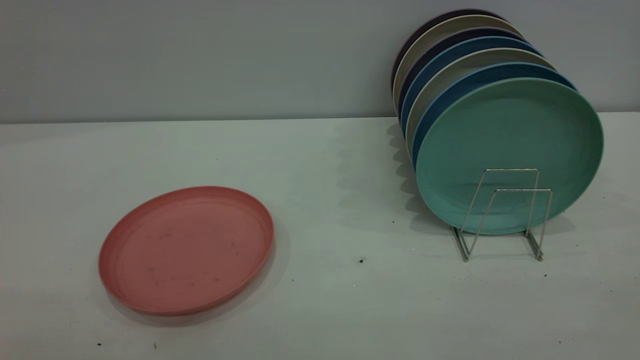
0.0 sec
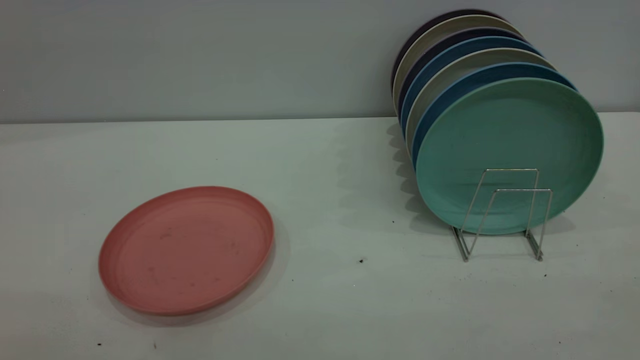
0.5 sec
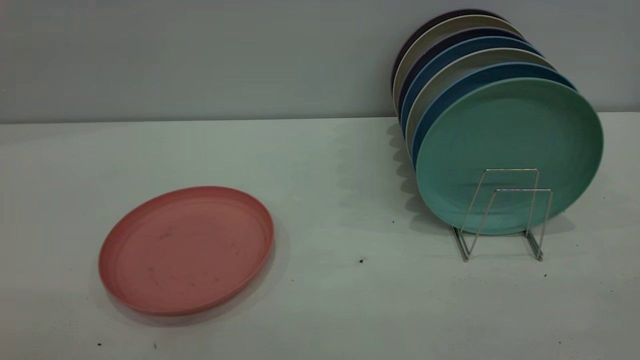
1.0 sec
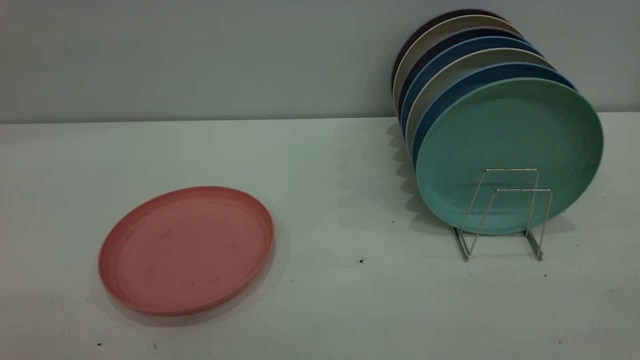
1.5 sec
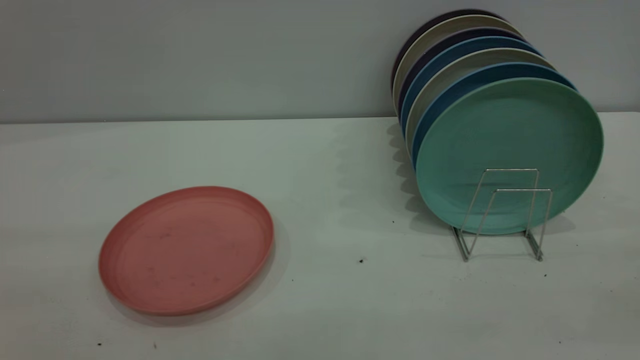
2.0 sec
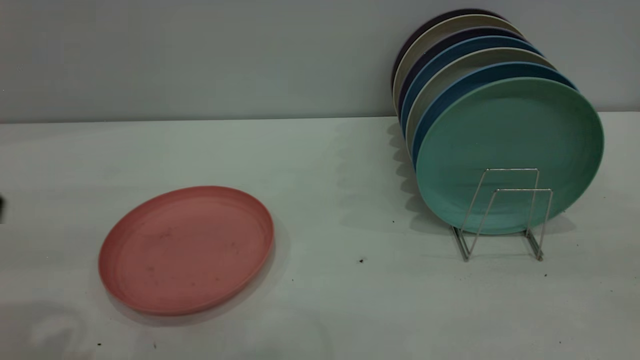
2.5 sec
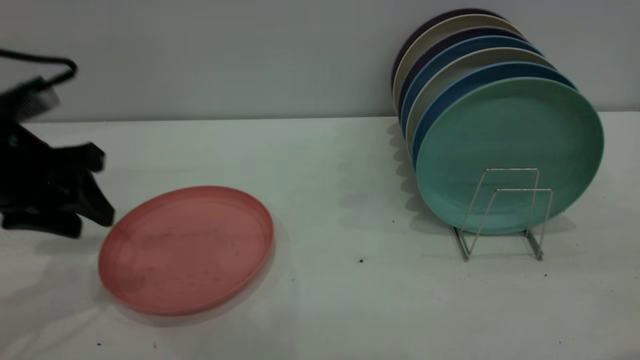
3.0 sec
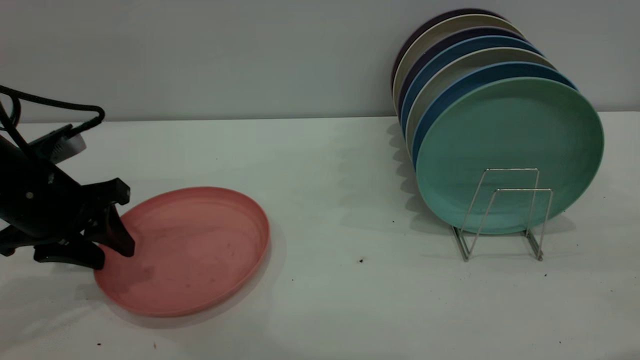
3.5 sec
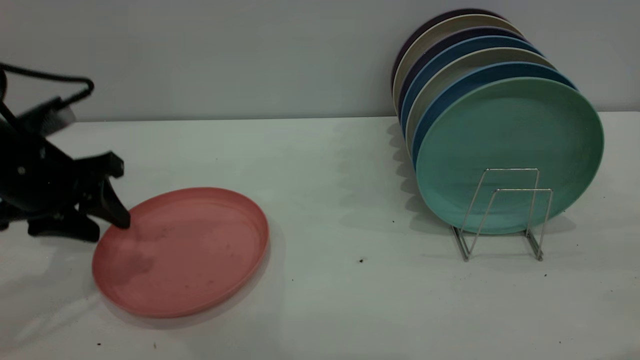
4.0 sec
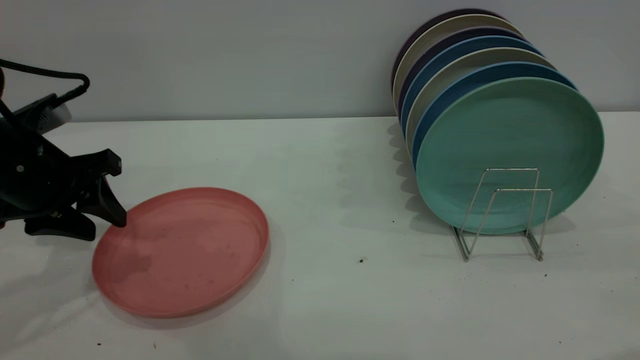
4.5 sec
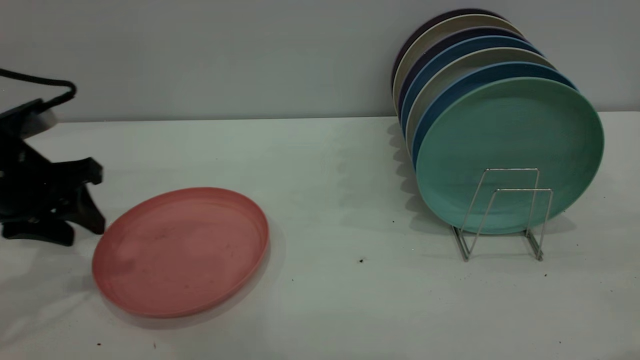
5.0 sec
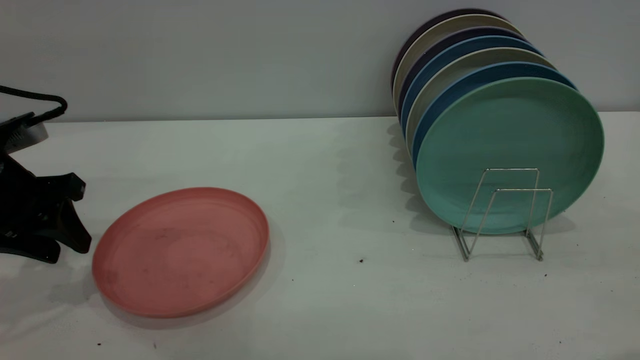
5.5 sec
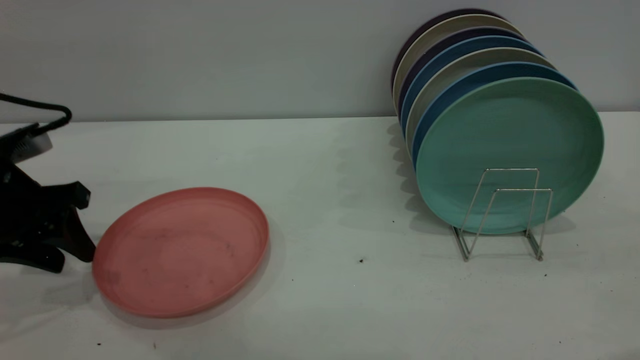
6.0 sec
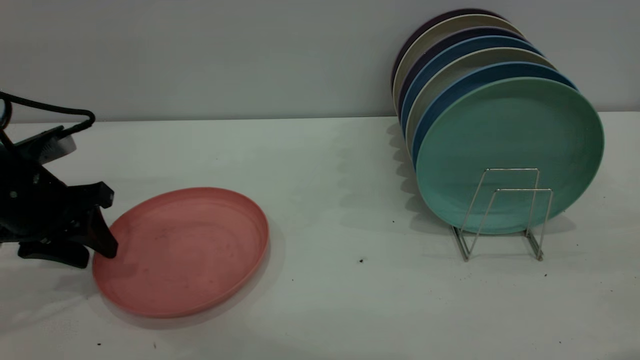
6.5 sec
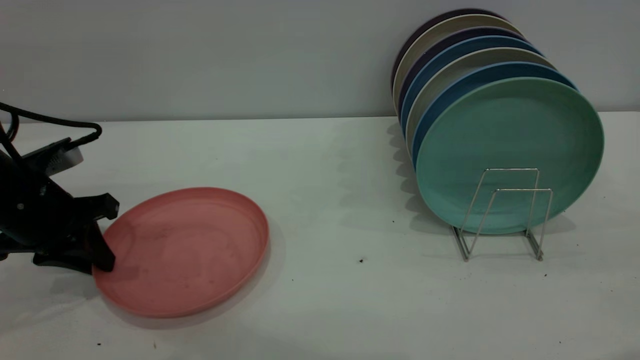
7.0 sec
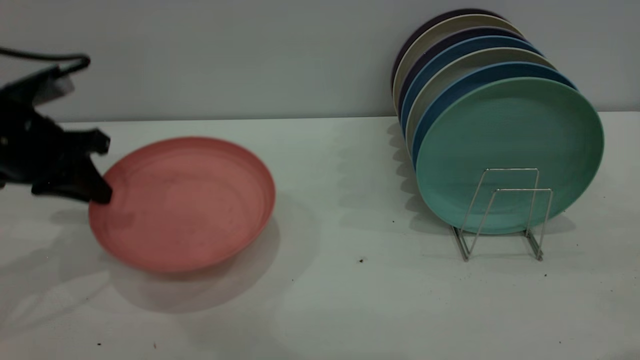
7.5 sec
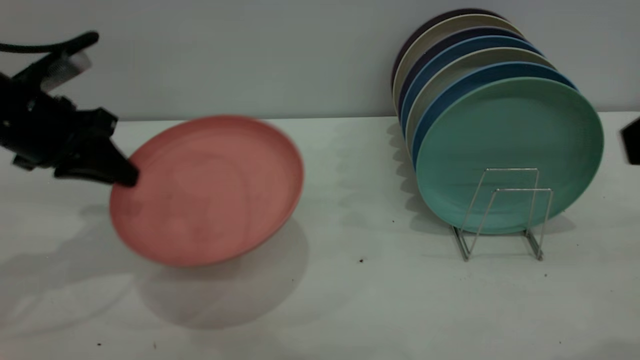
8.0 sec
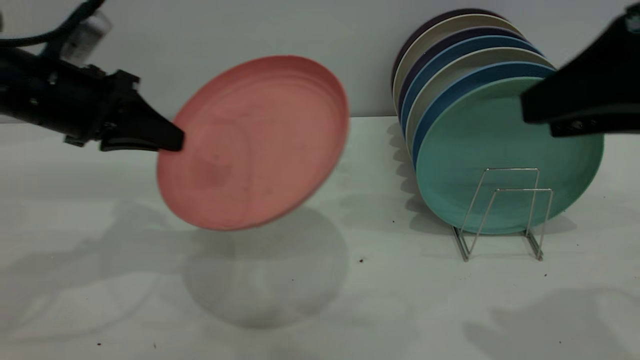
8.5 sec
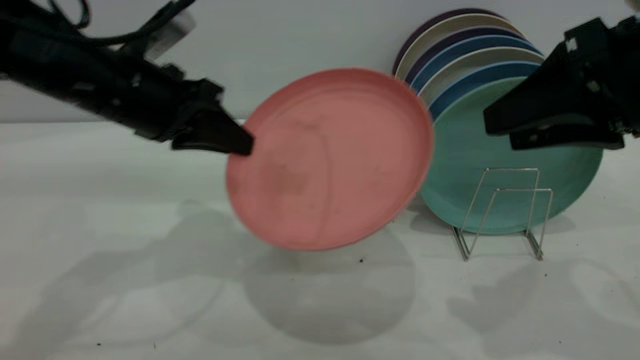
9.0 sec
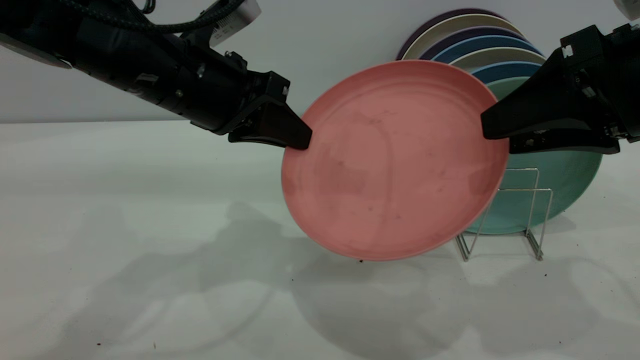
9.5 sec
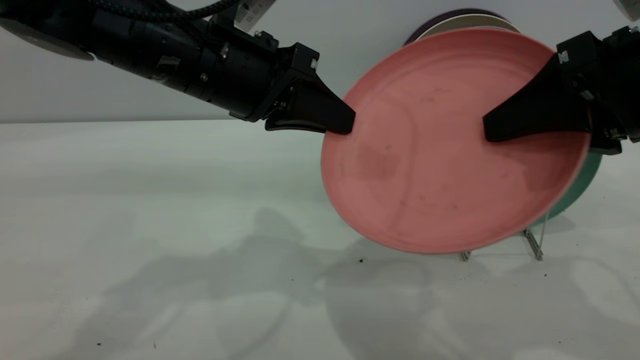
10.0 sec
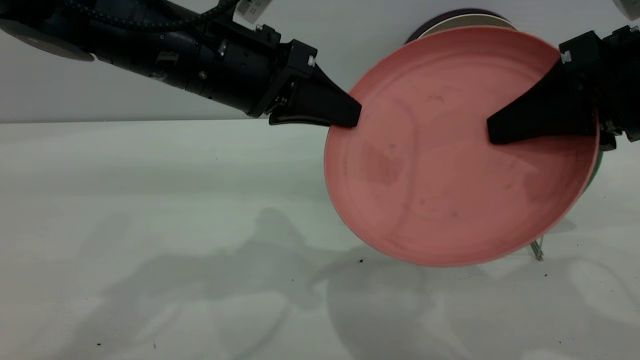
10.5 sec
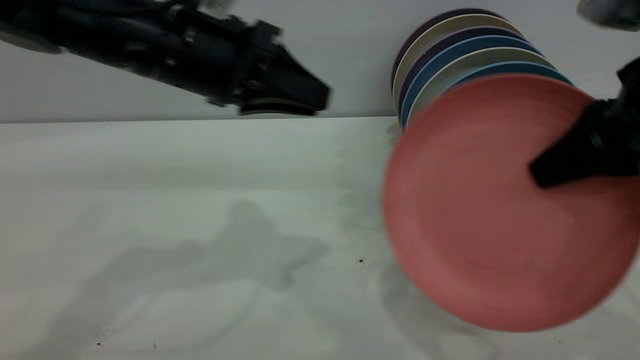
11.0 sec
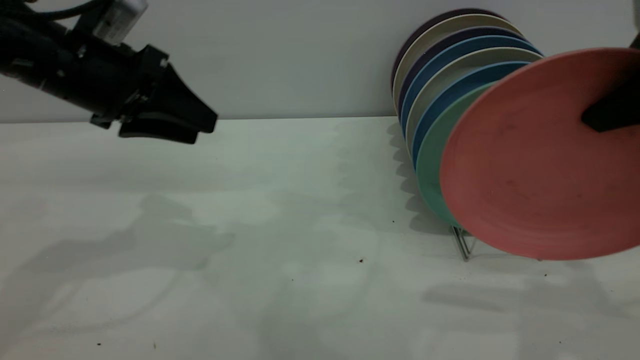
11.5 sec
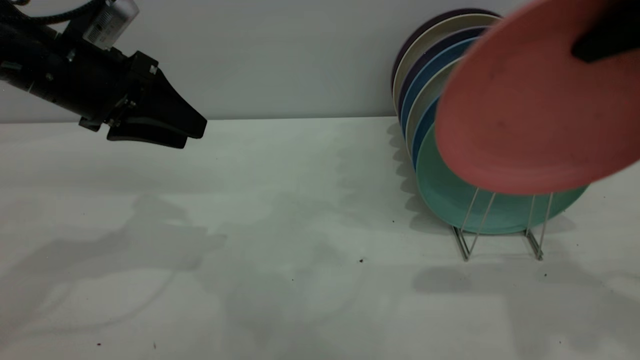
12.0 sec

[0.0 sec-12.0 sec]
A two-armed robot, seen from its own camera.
Task of the whole recording: put the plate on the plate rack.
Step, 0.0 sec to 7.0 sec: Pick up the plate with the left gripper.
Step, 7.5 sec to 9.5 sec: Pass the plate from the left gripper to the right gripper.
2.0 sec to 4.0 sec: The left gripper travels forward and downward by roughly 35 cm.
4.0 sec to 6.0 sec: The grippers stay close to where they were, moving slightly.
6.0 sec to 8.0 sec: The left gripper moves upward, roughly 5 cm, and closes its fingers.
8.0 sec to 10.0 sec: The left gripper heads to the right, covering about 20 cm, while the right gripper is displaced forward and downward by about 10 cm.
10.0 sec to 12.0 sec: The left gripper goes about 15 cm to the left, and opens its fingers. The right gripper is displaced upward by approximately 10 cm, and closes its fingers.

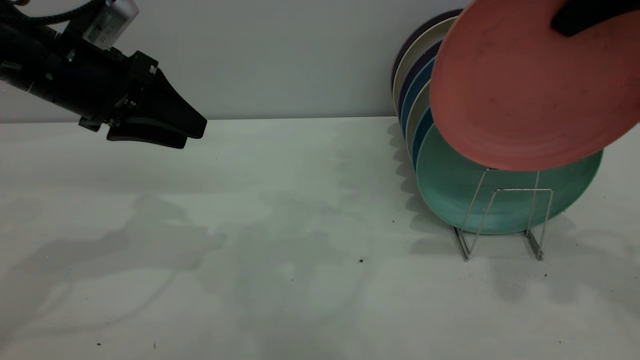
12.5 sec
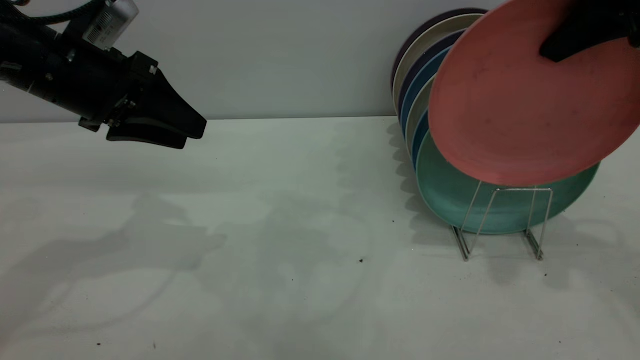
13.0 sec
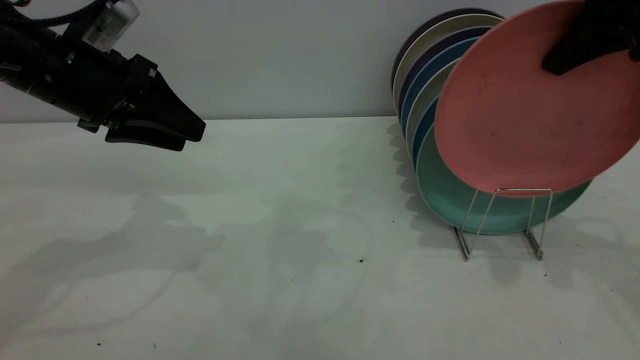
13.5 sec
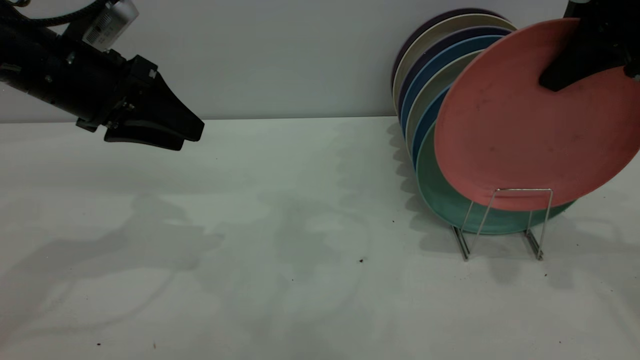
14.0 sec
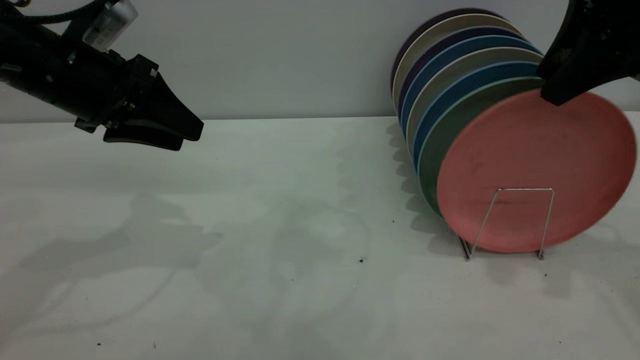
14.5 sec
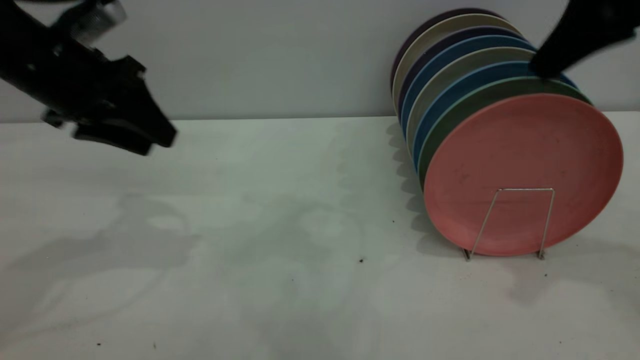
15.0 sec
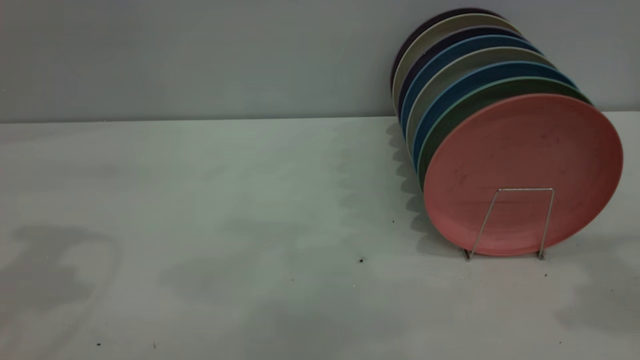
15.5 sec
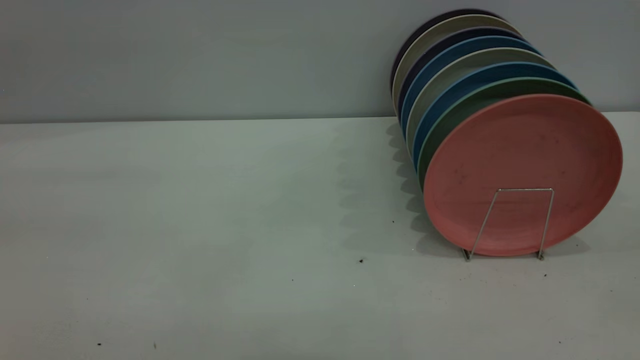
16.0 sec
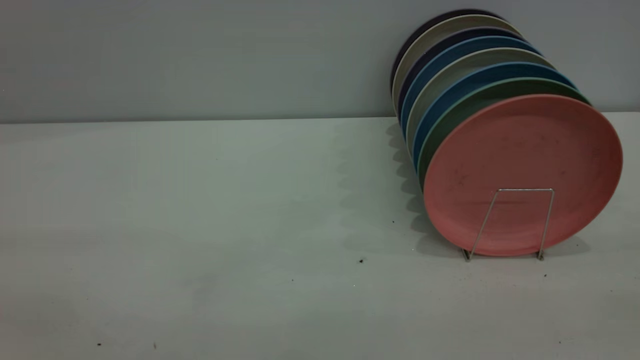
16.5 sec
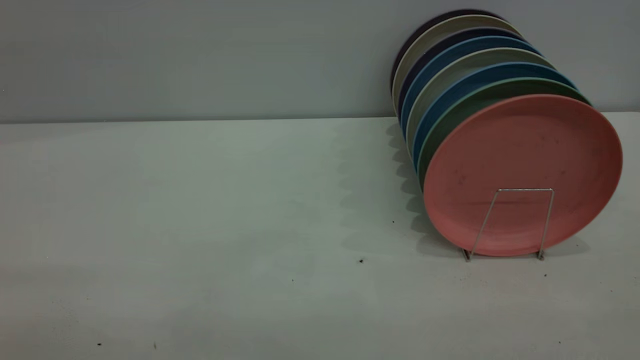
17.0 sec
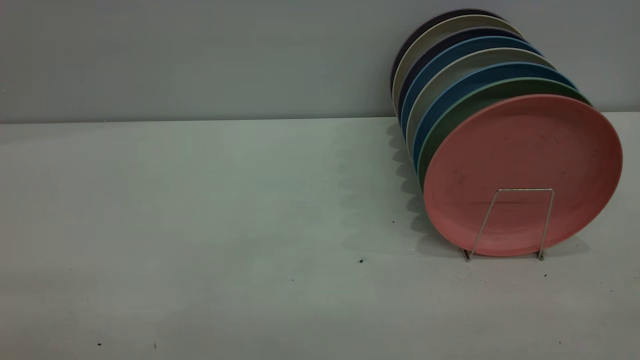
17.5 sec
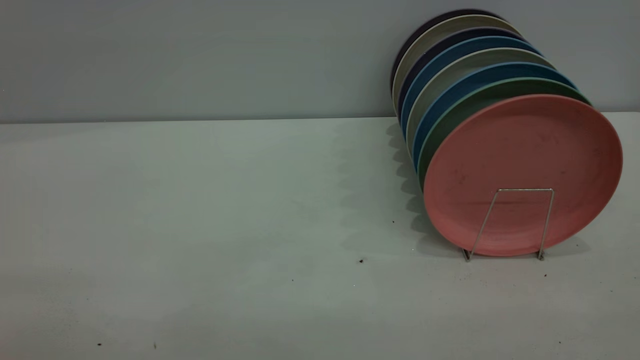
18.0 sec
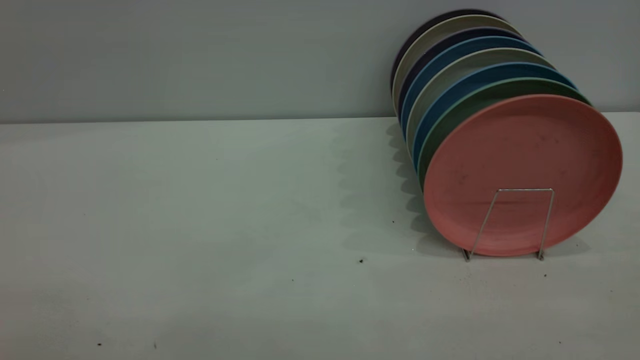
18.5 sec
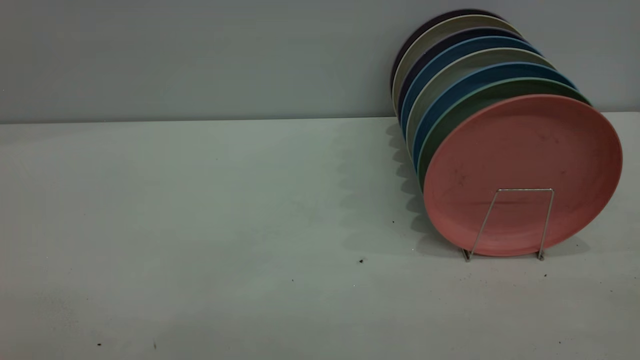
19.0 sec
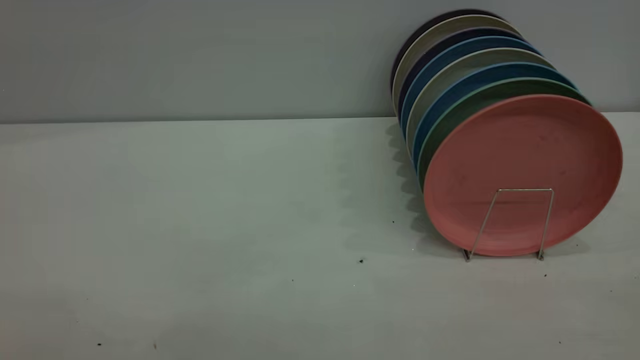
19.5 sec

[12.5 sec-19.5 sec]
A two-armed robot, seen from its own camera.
Task of the whole recording: put the plate on the plate rack.
Step, 12.5 sec to 14.5 sec: Place the plate on the shelf.
12.5 sec to 14.5 sec: The right gripper shifts by roughly 5 cm, and opens up.
14.5 sec to 16.0 sec: The two grippers go some 30 cm backward and upward.
